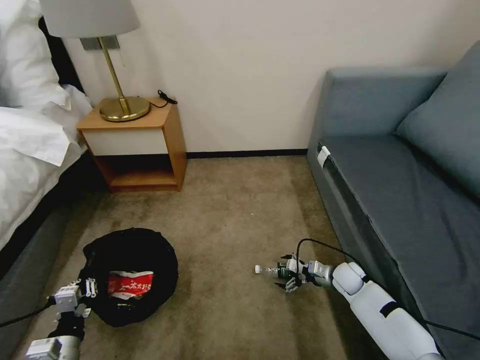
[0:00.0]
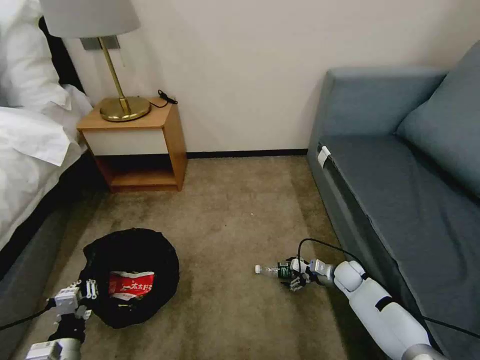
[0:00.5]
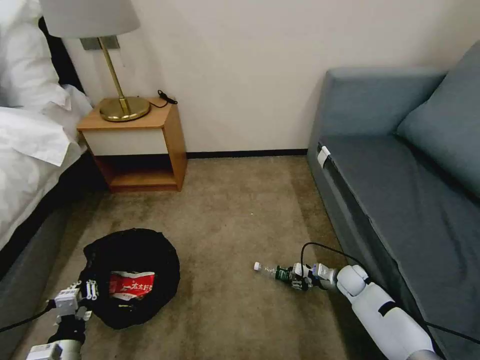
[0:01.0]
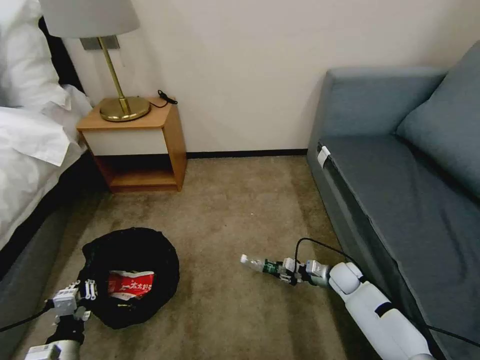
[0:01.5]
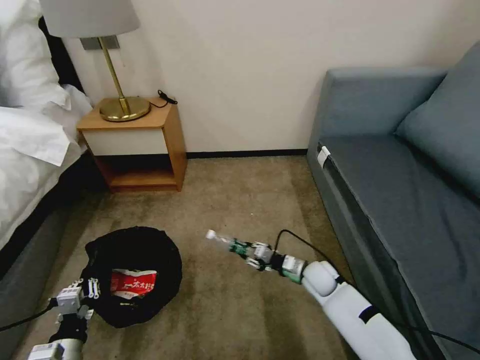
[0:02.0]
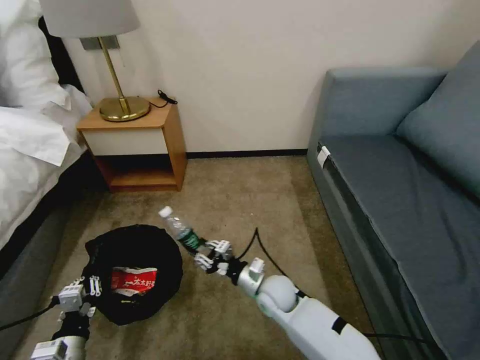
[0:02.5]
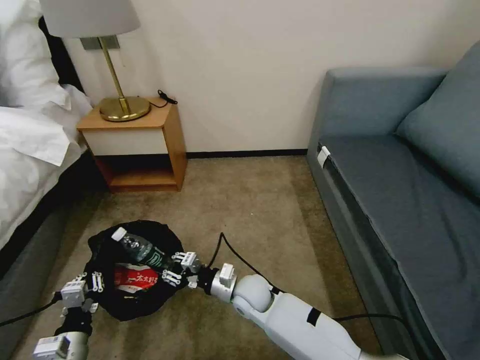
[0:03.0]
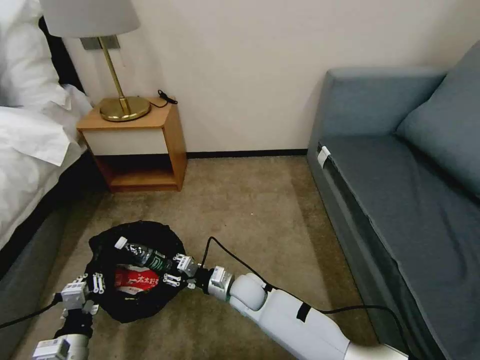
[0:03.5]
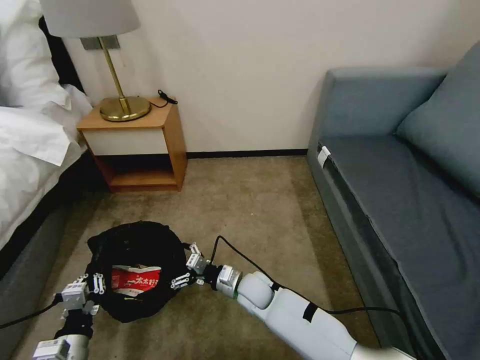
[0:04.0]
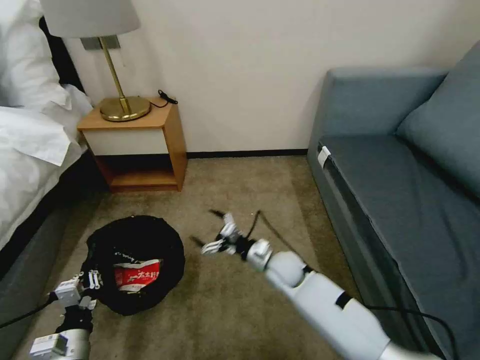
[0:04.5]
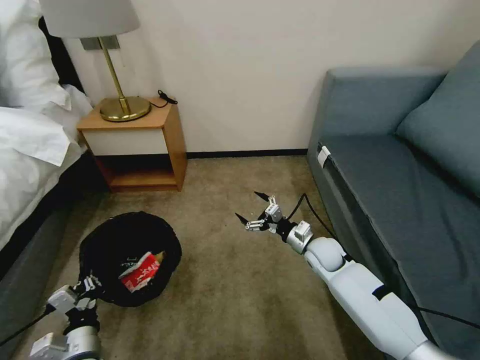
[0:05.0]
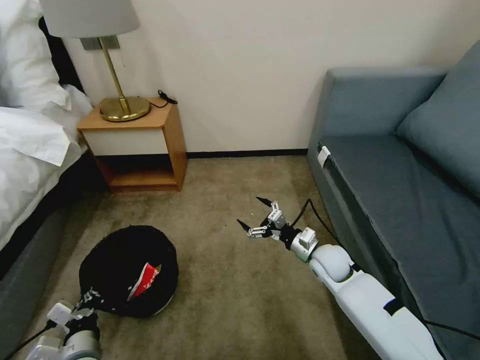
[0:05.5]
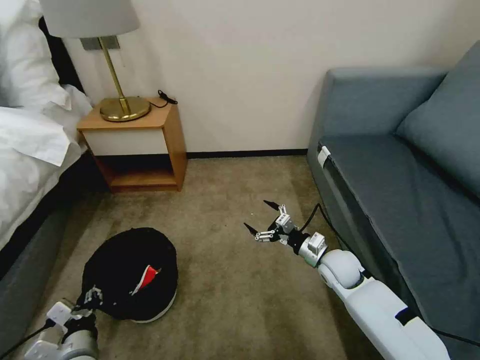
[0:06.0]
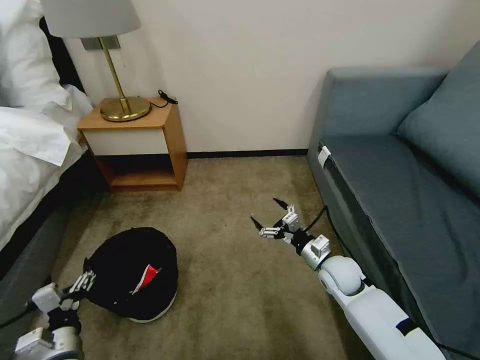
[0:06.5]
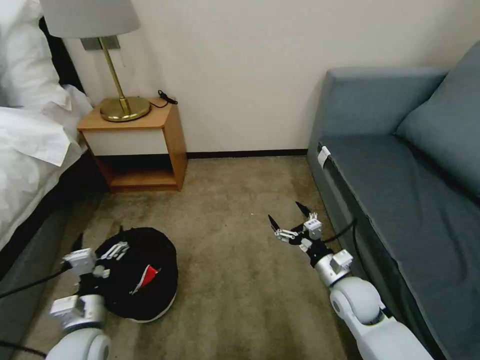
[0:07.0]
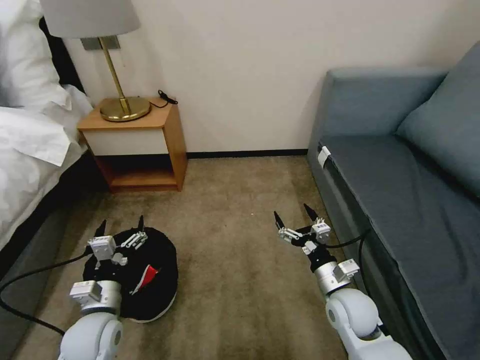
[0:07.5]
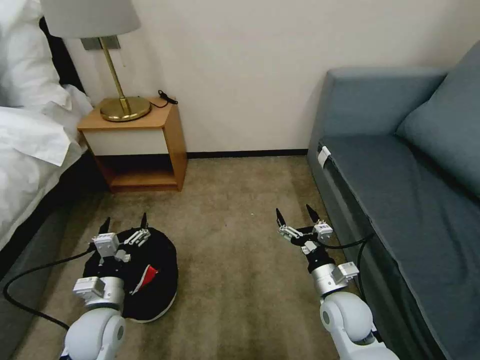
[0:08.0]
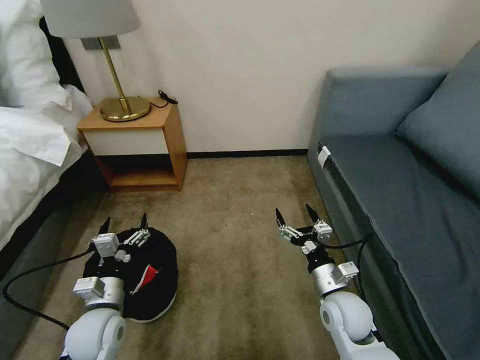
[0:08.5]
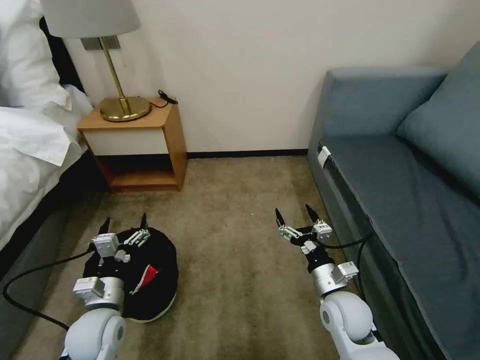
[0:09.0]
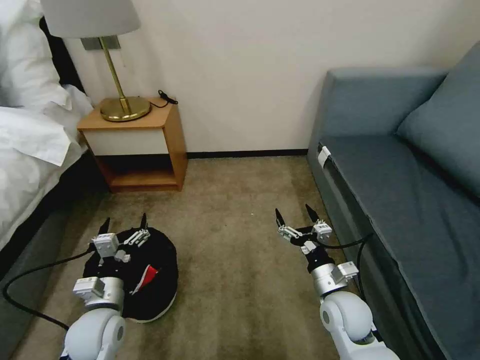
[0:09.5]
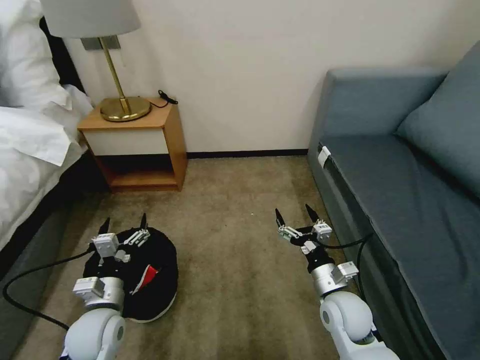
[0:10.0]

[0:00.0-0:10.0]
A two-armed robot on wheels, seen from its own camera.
Task of the whole recording: Pick up the trash bin, then pick up the garbage on the floor and place it into the trash bin.
0:00.0 to 0:02.0: The right gripper is displaced to the left by some 10 cm, and closes up.
0:02.0 to 0:04.0: The right gripper heads to the left, covering approximately 20 cm, and opens up.
0:04.0 to 0:06.0: The left gripper opens up. Meanwhile the right gripper travels to the right by roughly 20 cm.
0:06.0 to 0:08.0: The left gripper moves forward, approximately 10 cm, and opens its fingers, while the right gripper heads backward, covering approximately 10 cm.
0:08.0 to 0:10.0: Both grippers stay about where they are.

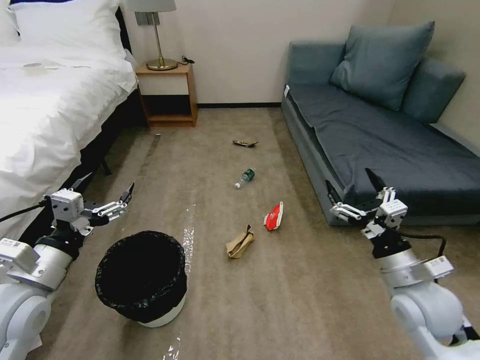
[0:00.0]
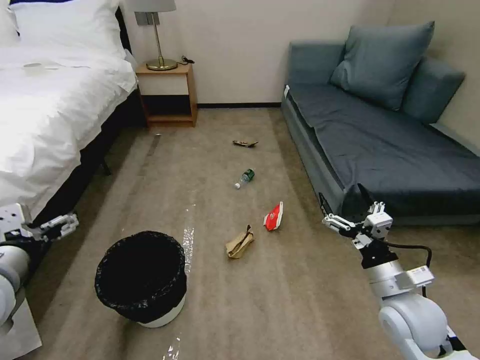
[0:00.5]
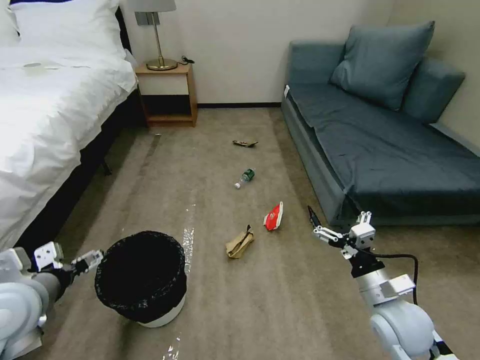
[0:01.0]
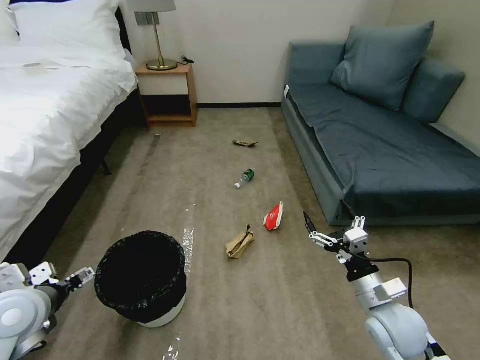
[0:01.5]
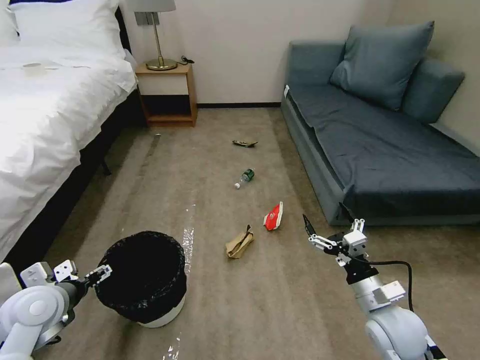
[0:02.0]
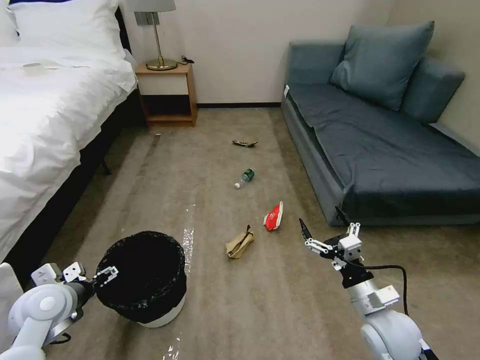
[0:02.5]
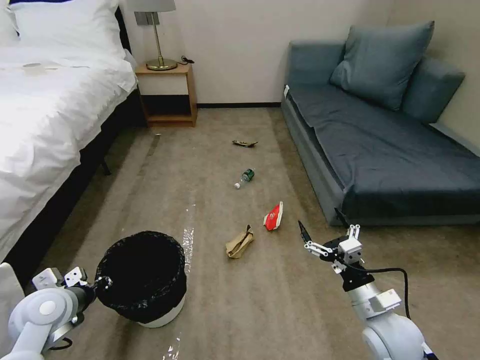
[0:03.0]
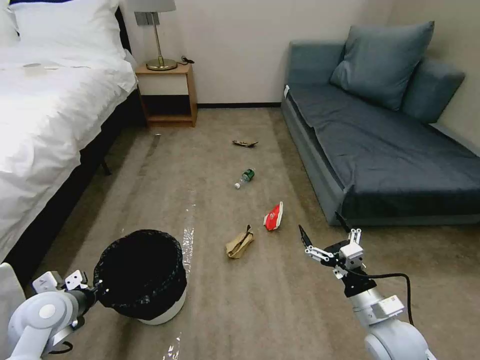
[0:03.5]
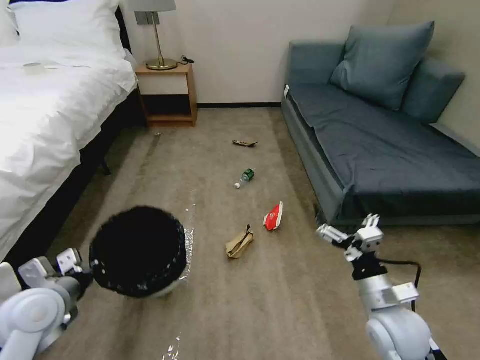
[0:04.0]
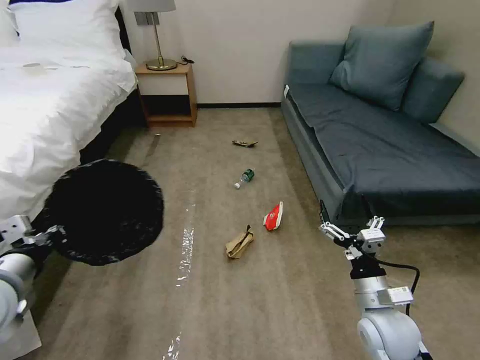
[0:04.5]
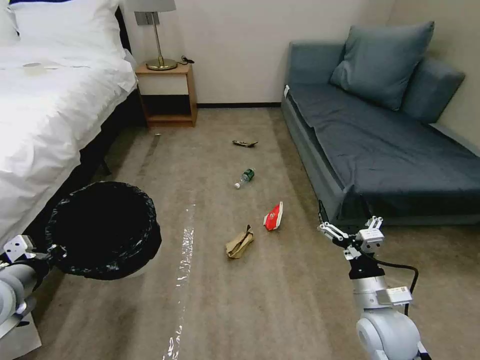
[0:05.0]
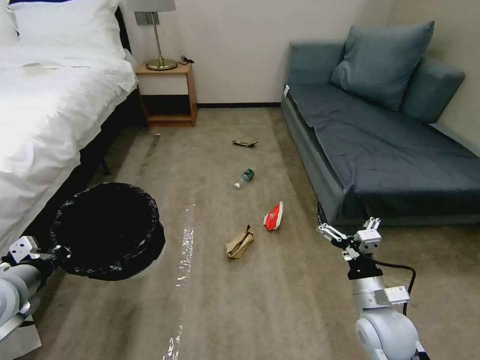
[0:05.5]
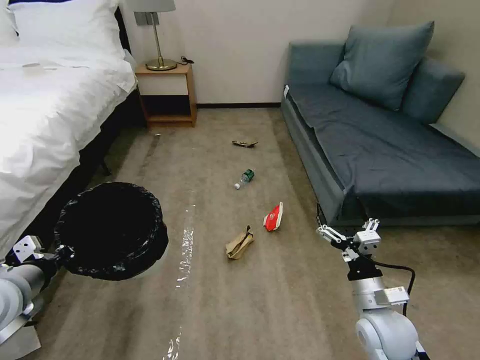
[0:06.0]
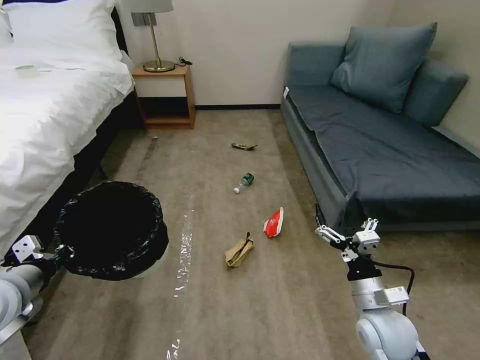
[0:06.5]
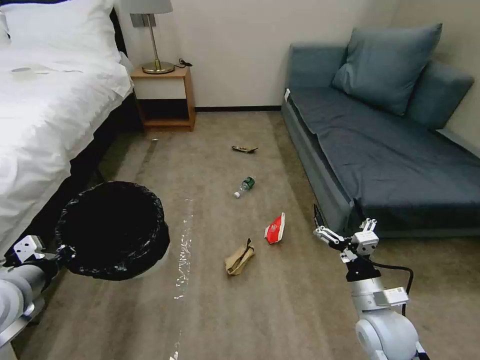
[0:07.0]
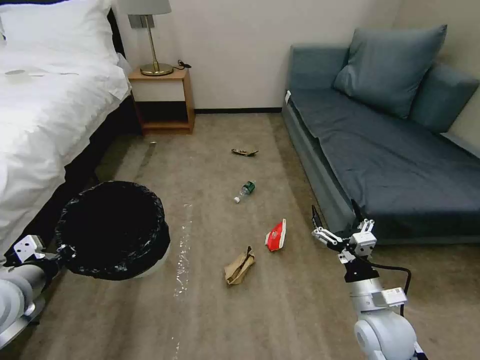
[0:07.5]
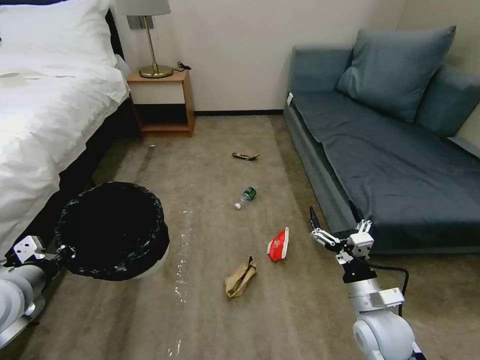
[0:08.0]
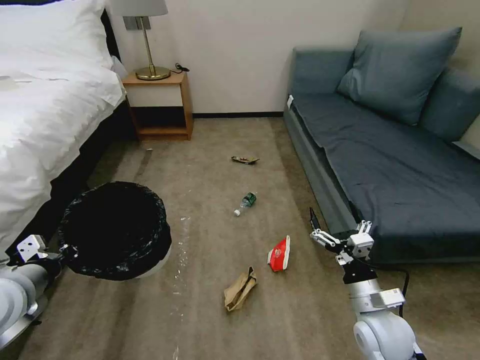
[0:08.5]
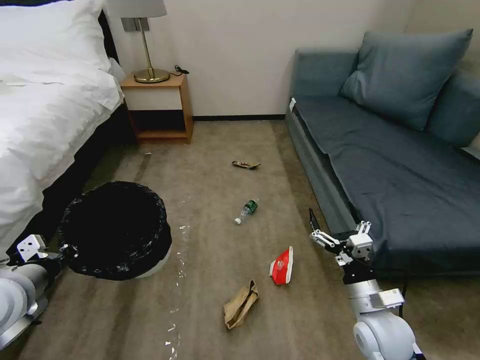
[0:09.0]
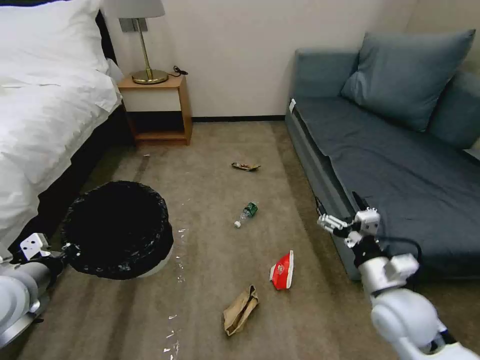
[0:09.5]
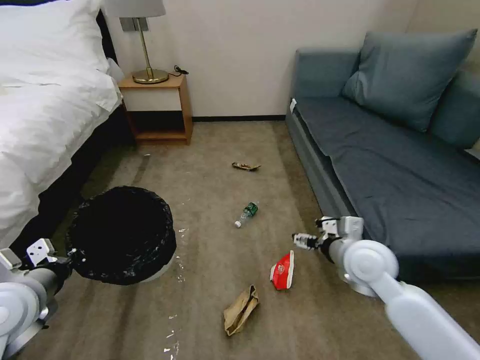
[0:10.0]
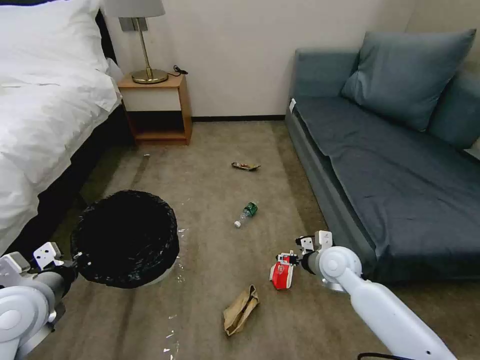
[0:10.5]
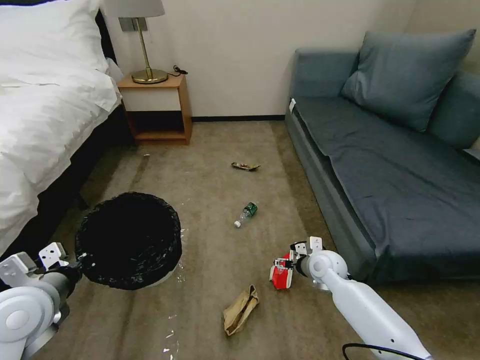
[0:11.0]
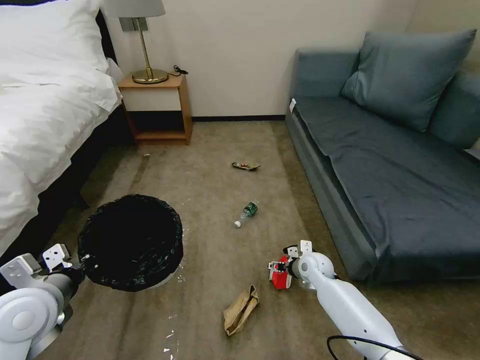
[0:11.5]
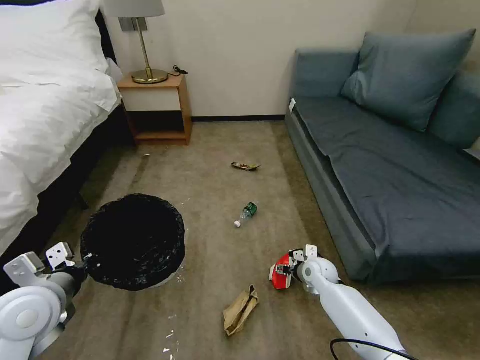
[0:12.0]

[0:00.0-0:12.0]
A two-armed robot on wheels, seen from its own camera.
Task of the whole recording: Pick up the trash bin, then pick up the garbage on the floor and place it into the trash bin.
0:02.0 to 0:04.0: The left gripper closes up.
0:04.0 to 0:06.0: The left gripper moves upward, approximately 5 cm.
0:08.0 to 0:10.0: The right gripper goes roughly 15 cm upward and forward.
0:10.0 to 0:12.0: The right gripper is displaced downward by approximately 25 cm.

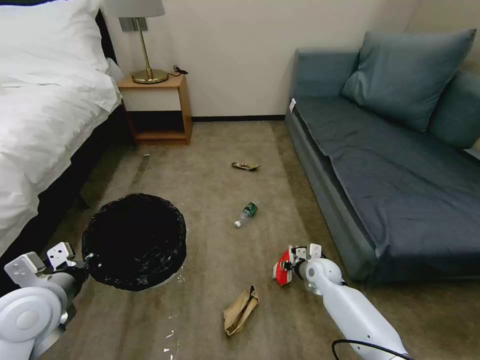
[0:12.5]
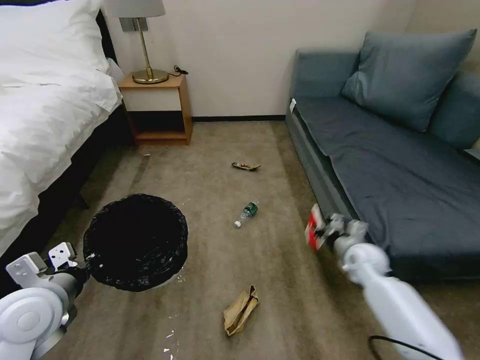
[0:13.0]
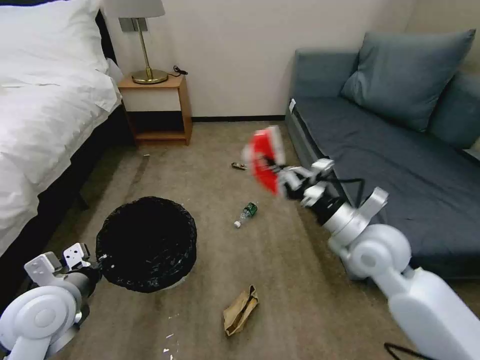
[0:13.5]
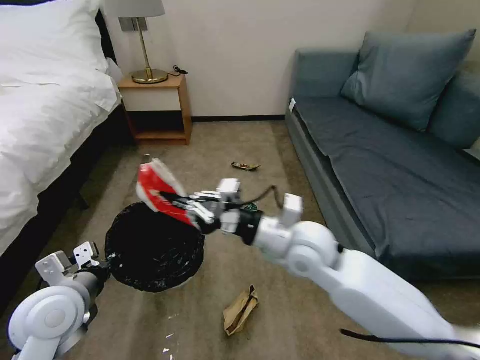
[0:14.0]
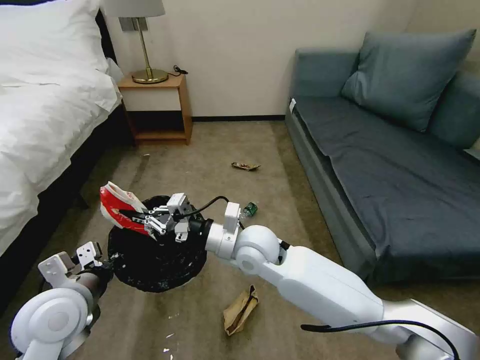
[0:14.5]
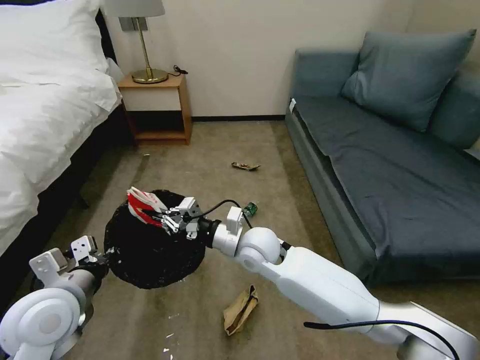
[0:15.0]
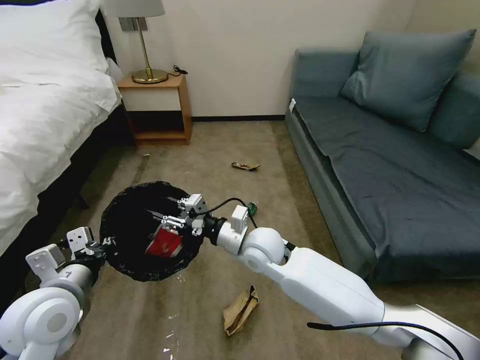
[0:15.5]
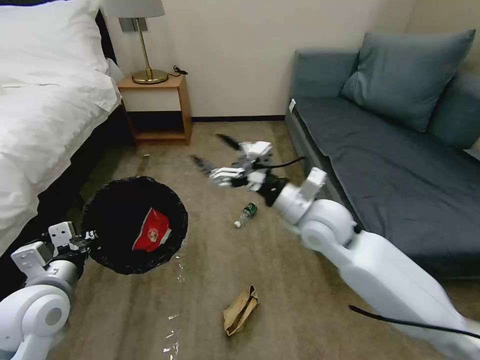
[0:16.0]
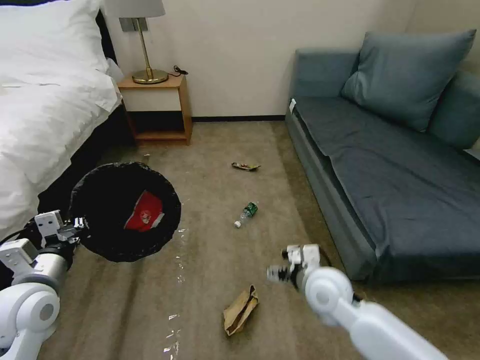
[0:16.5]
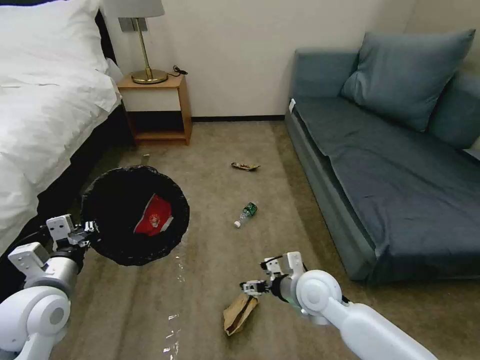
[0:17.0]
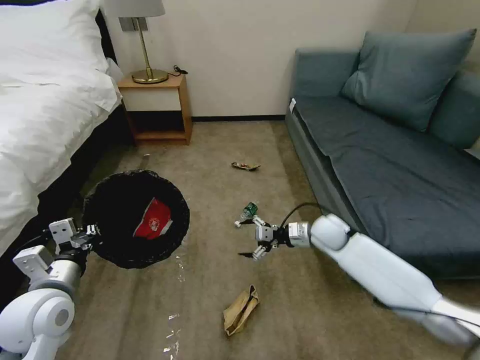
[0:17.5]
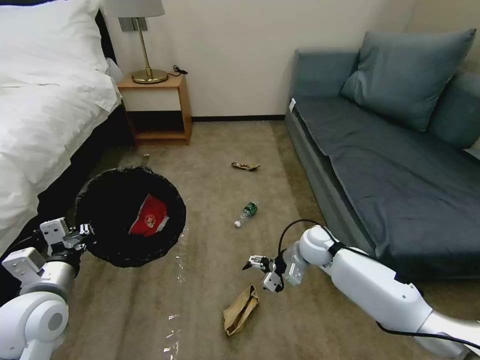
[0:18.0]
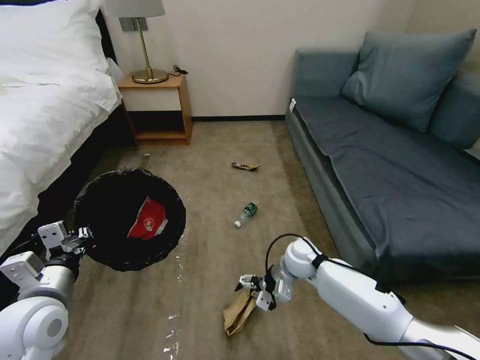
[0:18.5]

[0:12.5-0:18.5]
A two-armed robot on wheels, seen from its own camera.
Task of the whole recording: Pick up the trash bin, then pick up the garbage on the floor and place it into the trash bin.
0:12.5 to 0:14.5: The right gripper is displaced upward and to the left by about 30 cm.
0:14.5 to 0:16.5: The right gripper goes about 20 cm to the right, downward and backward, and opens its fingers. The left gripper shifts roughly 5 cm to the left.
0:16.5 to 0:18.5: The right gripper is displaced forward and downward by some 15 cm.
